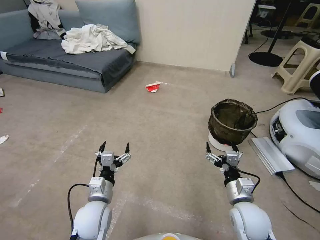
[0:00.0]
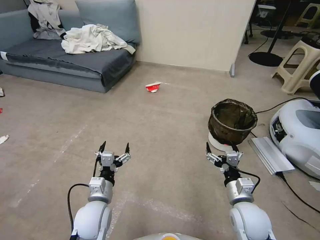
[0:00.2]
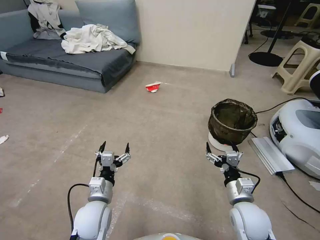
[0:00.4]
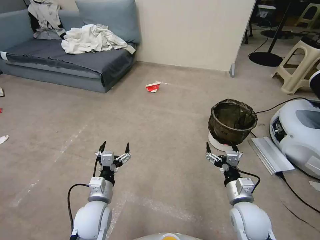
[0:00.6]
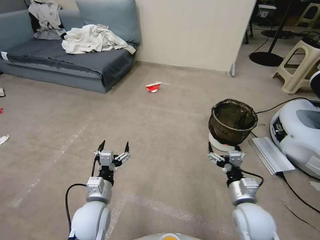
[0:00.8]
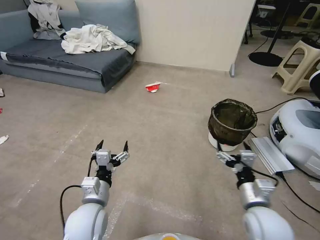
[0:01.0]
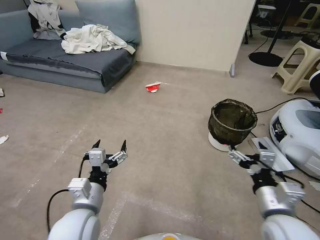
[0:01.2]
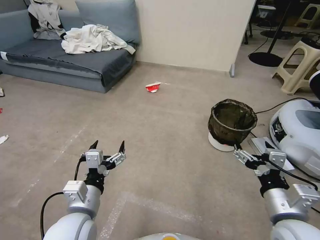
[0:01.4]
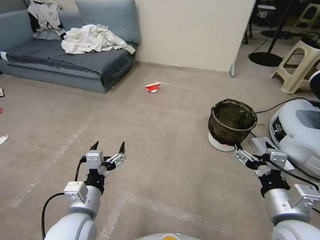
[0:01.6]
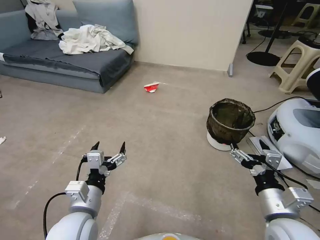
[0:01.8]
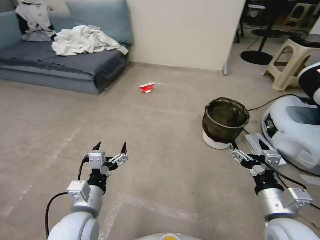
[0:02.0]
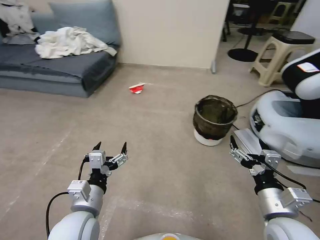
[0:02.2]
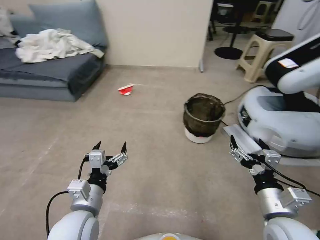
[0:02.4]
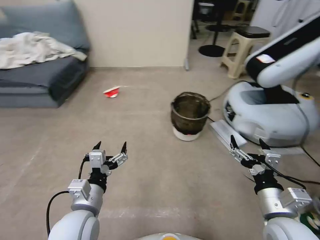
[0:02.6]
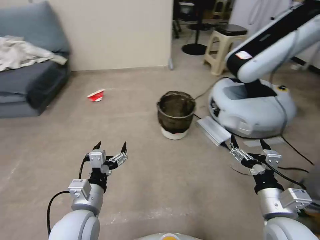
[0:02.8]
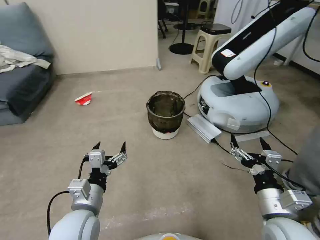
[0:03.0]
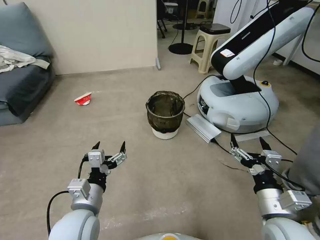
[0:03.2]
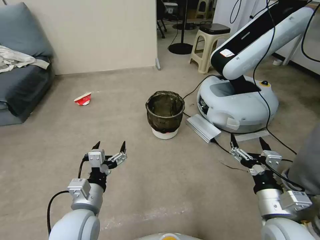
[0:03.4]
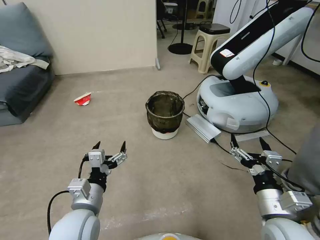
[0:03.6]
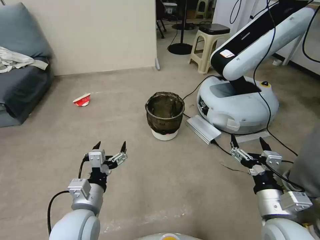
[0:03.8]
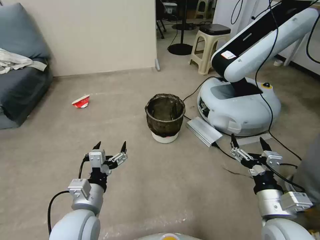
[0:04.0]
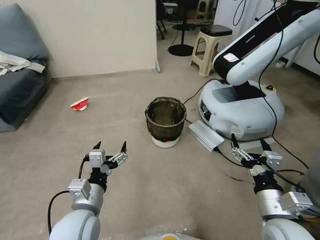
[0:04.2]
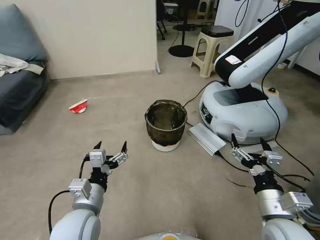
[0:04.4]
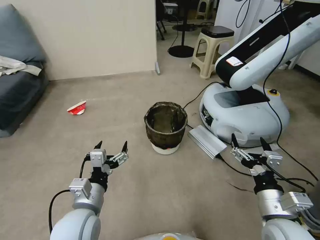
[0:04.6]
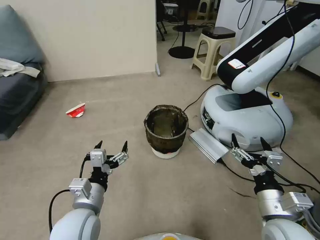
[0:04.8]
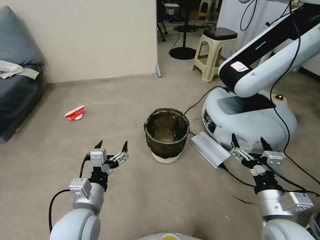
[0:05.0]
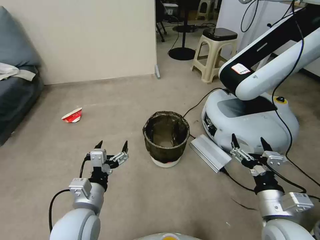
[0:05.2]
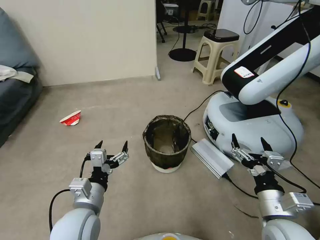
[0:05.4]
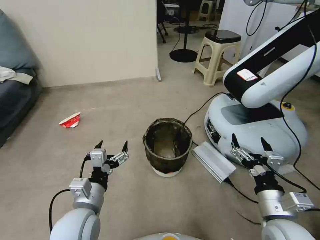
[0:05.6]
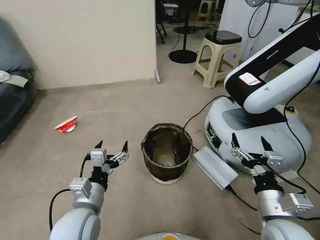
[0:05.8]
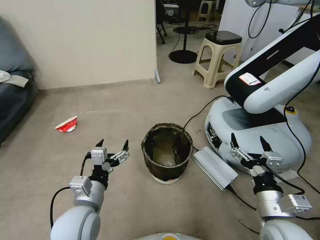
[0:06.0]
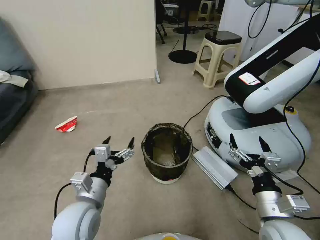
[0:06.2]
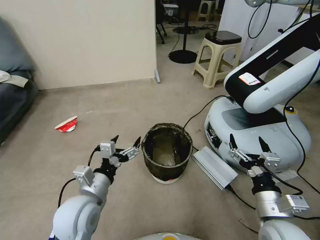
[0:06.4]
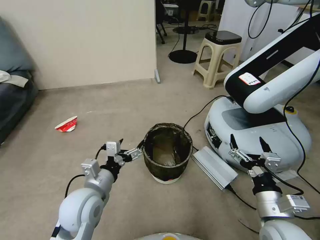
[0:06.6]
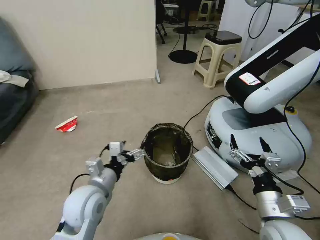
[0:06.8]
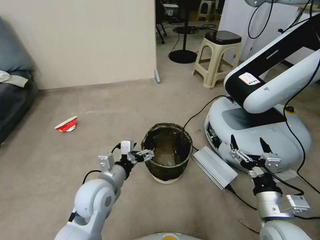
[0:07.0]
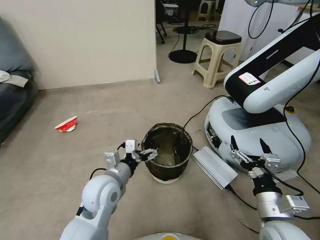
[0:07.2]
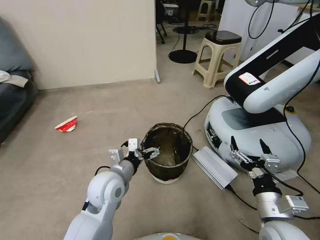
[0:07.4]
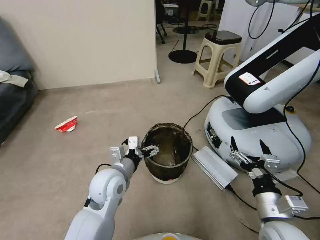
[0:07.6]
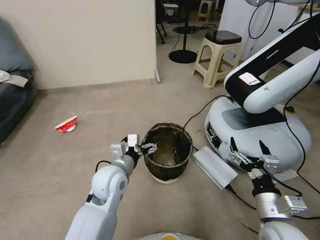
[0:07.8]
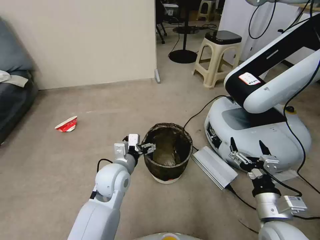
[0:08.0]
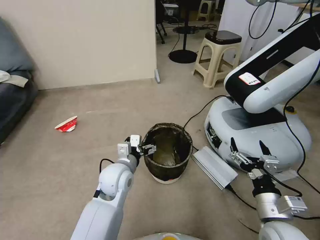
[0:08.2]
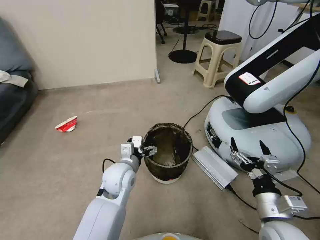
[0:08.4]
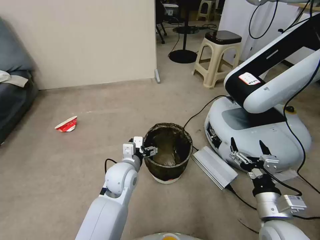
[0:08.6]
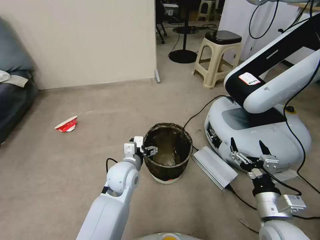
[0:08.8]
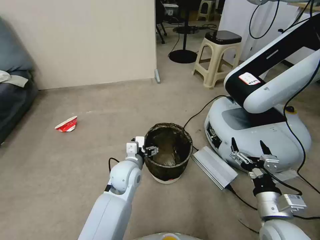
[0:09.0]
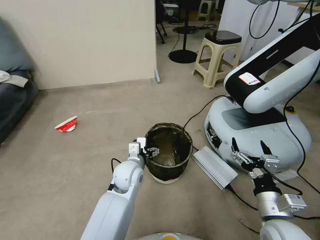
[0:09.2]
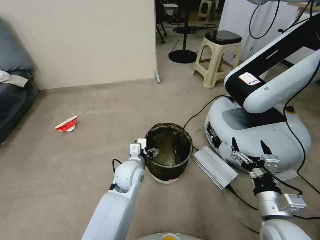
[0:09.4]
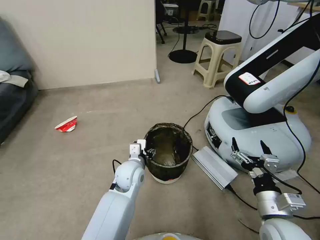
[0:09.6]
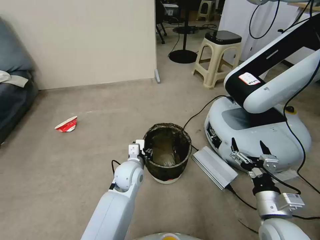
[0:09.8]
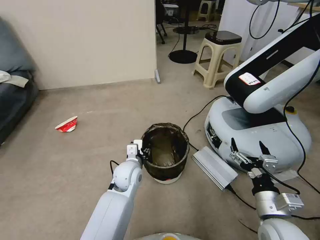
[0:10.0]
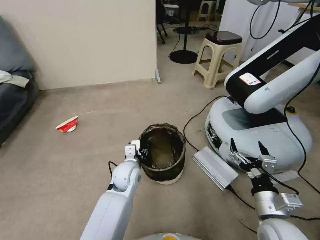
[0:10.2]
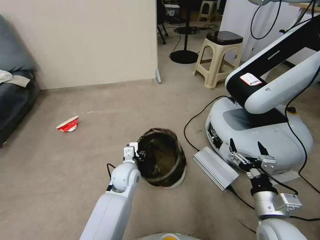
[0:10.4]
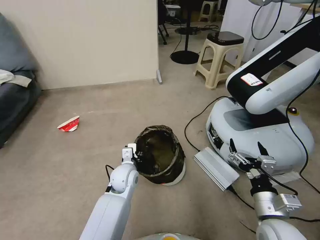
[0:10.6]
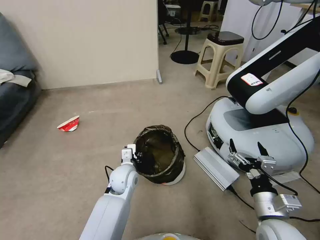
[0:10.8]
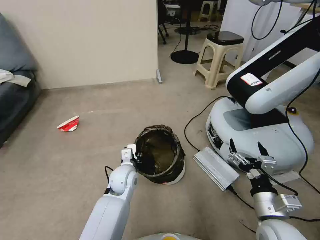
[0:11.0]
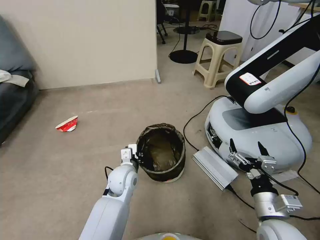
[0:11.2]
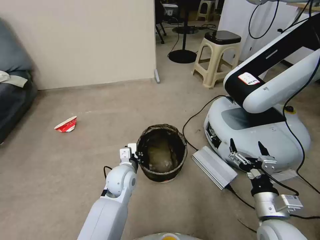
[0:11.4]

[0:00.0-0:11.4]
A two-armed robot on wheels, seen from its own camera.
Task of the whole recording: Pick up the trash can from the floor.
0:05.6 to 0:07.2: The left gripper goes about 10 cm forward.
0:07.2 to 0:08.6: The left gripper moves forward, roughly 5 cm.
0:08.6 to 0:10.0: The left gripper closes its fingers.
0:10.0 to 0:11.4: The left gripper closes its fingers.

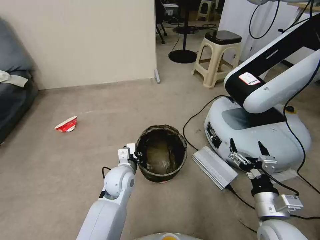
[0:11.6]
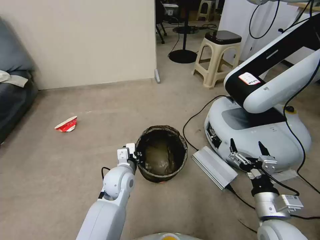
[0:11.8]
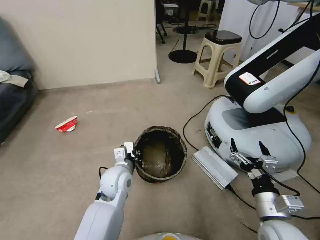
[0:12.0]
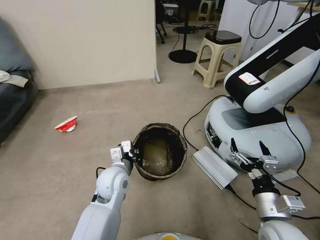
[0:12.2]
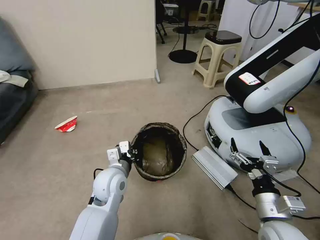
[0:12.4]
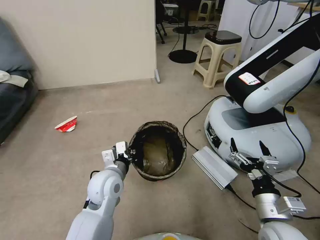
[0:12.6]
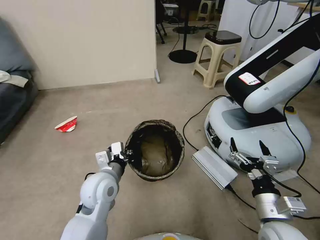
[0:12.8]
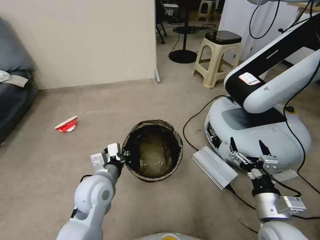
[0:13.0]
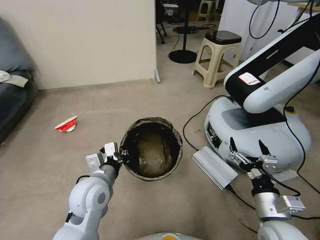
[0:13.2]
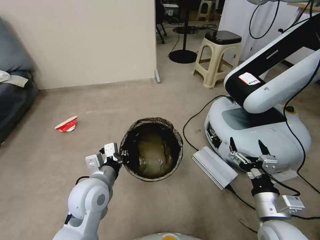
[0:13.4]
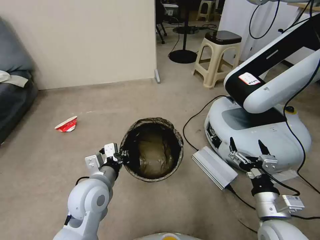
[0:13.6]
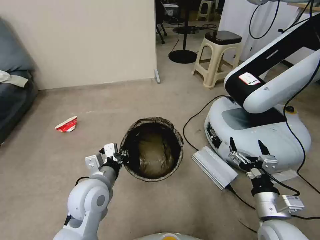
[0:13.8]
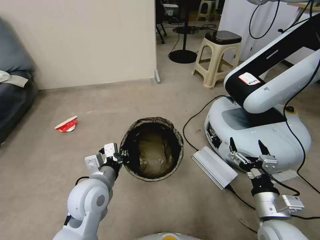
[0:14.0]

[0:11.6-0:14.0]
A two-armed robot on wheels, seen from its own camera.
Task of the whole recording: Pick up the trash can from the floor.
0:11.6 to 0:12.8: The left gripper travels upward by roughly 5 cm.
0:12.8 to 0:14.0: The grippers move only a little.
